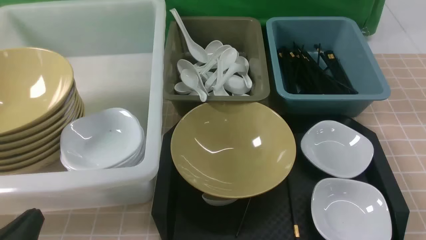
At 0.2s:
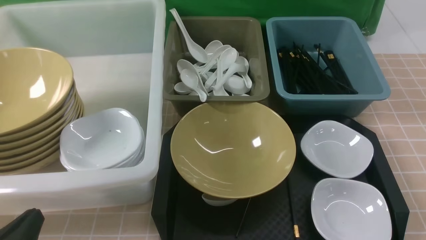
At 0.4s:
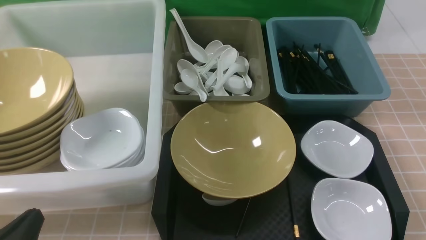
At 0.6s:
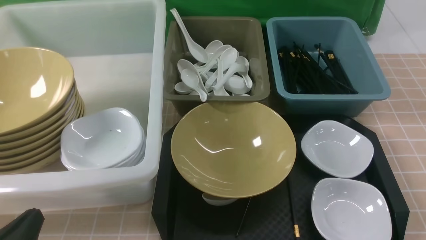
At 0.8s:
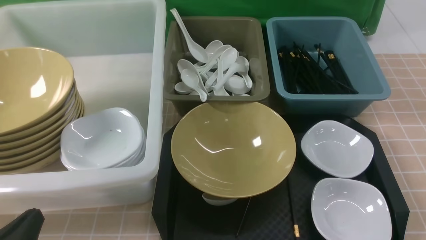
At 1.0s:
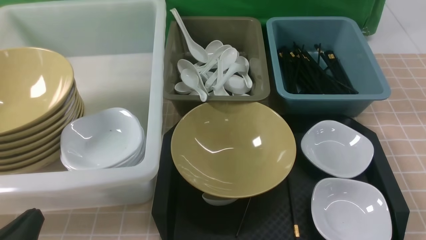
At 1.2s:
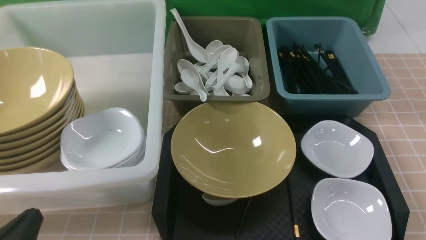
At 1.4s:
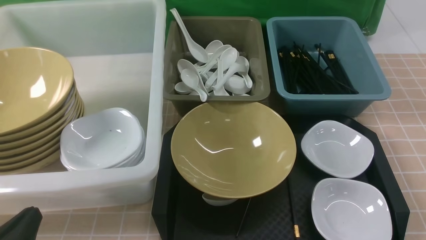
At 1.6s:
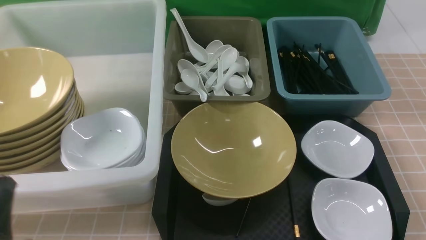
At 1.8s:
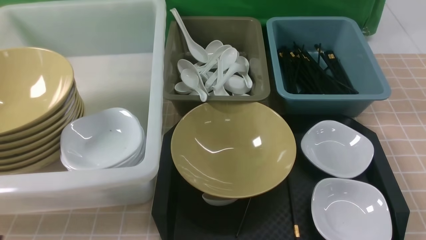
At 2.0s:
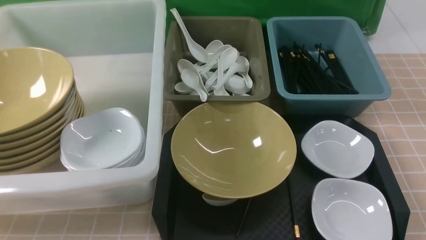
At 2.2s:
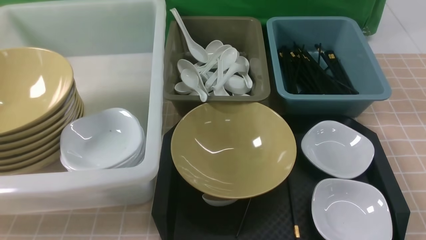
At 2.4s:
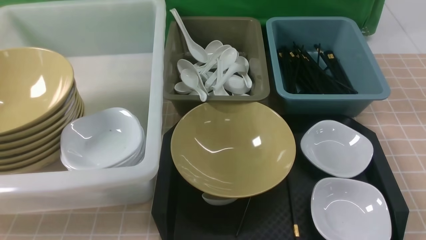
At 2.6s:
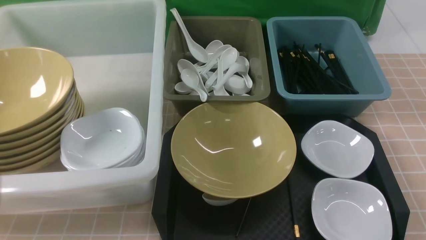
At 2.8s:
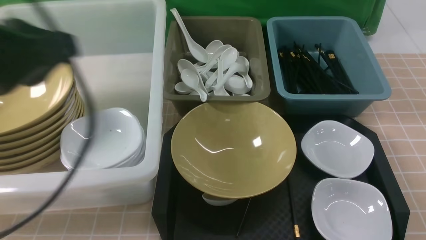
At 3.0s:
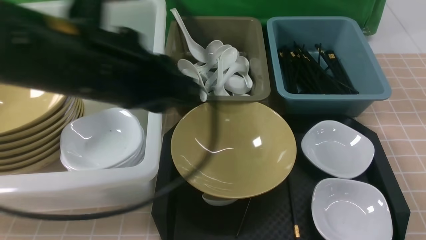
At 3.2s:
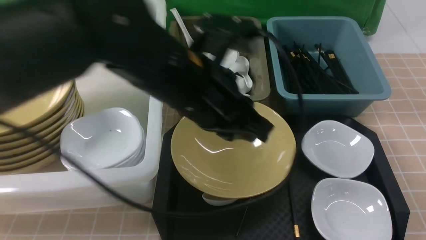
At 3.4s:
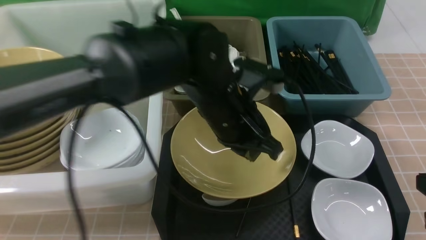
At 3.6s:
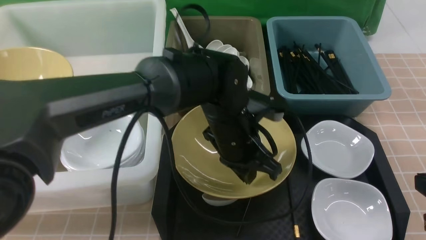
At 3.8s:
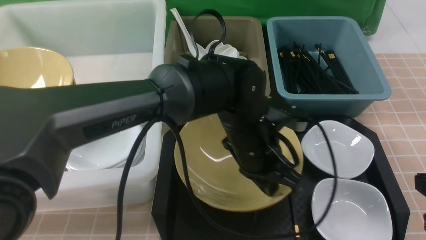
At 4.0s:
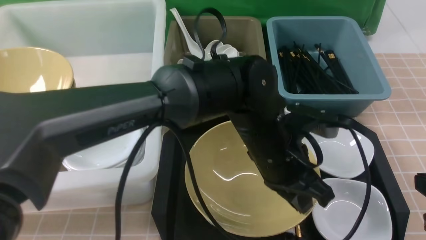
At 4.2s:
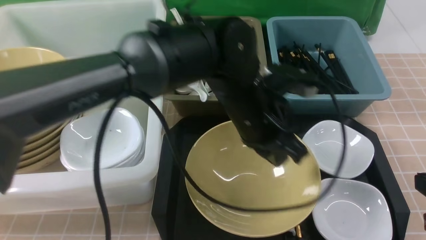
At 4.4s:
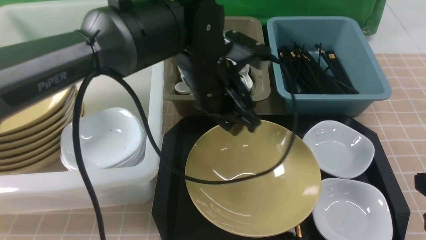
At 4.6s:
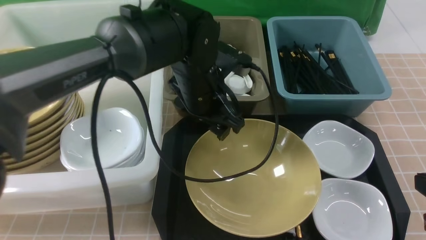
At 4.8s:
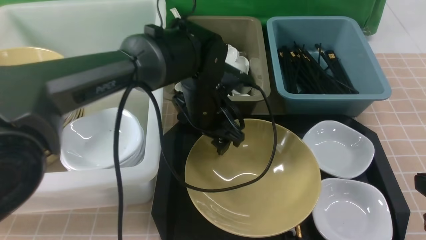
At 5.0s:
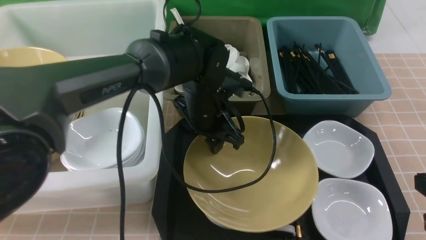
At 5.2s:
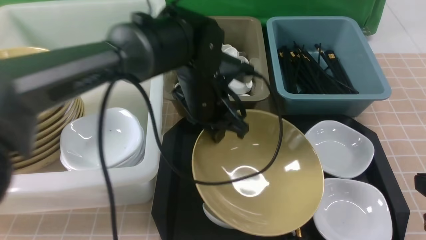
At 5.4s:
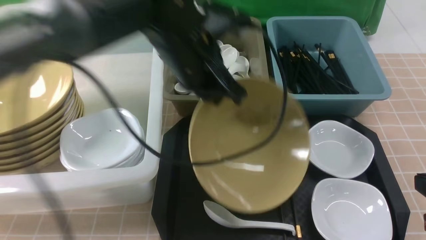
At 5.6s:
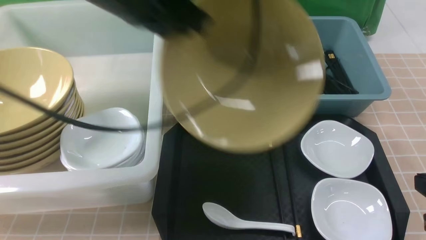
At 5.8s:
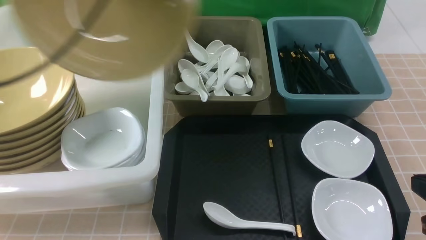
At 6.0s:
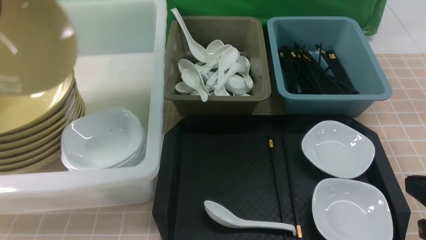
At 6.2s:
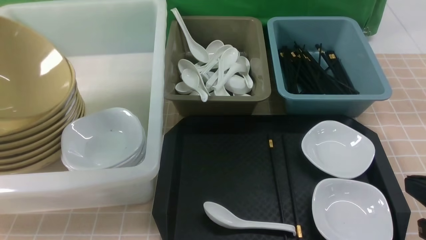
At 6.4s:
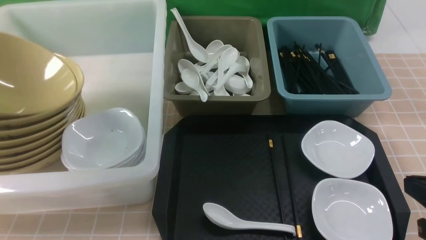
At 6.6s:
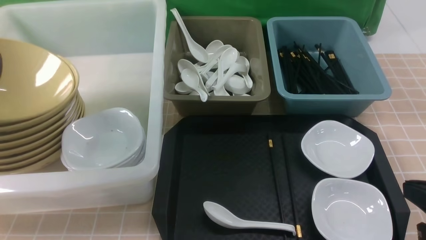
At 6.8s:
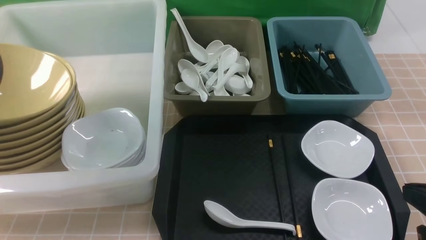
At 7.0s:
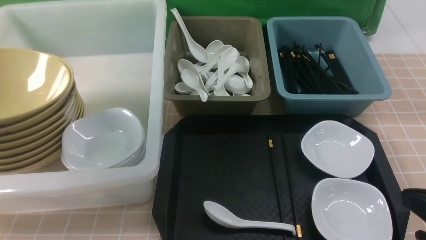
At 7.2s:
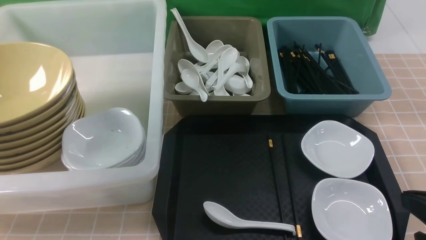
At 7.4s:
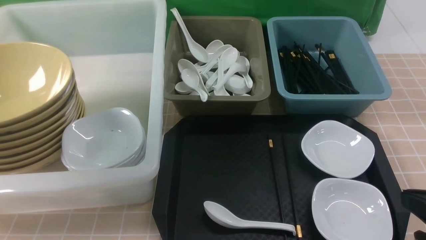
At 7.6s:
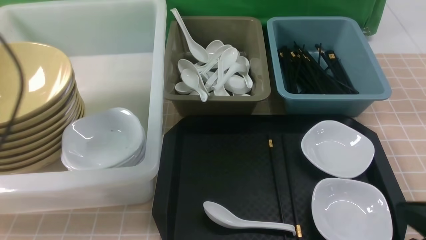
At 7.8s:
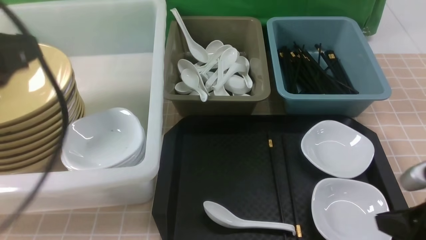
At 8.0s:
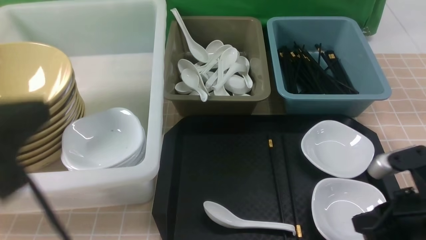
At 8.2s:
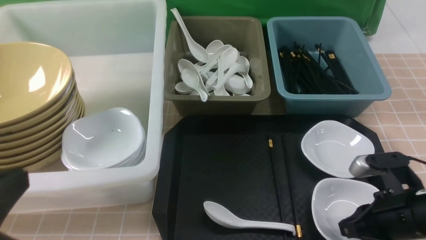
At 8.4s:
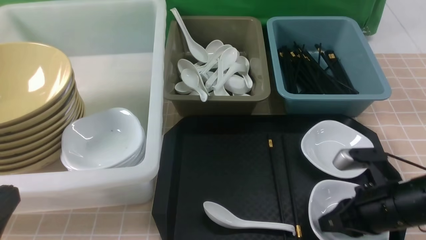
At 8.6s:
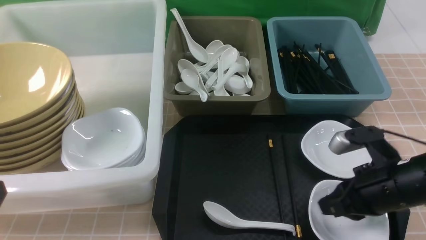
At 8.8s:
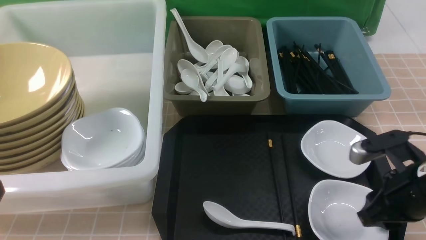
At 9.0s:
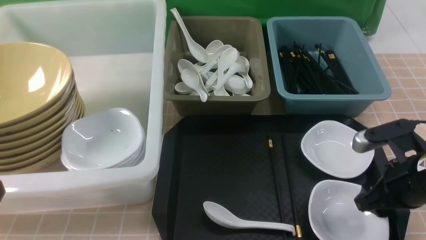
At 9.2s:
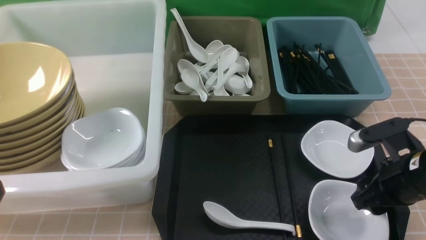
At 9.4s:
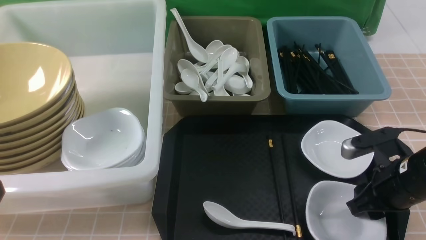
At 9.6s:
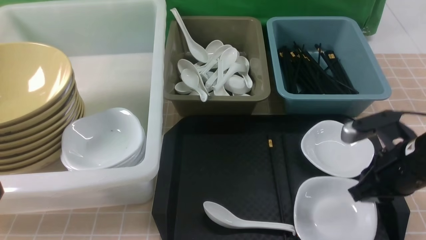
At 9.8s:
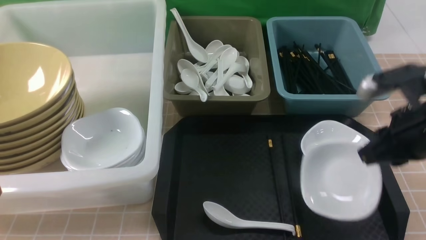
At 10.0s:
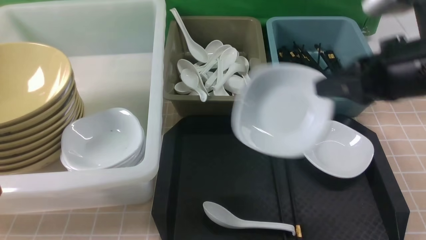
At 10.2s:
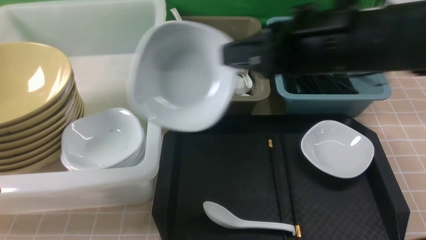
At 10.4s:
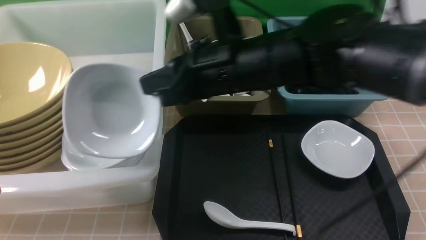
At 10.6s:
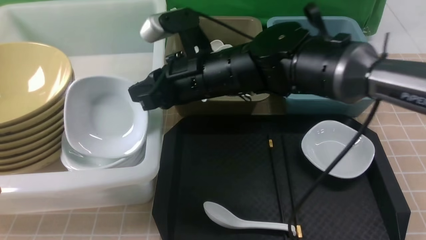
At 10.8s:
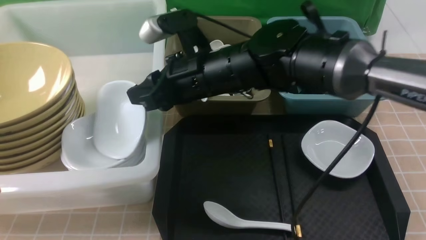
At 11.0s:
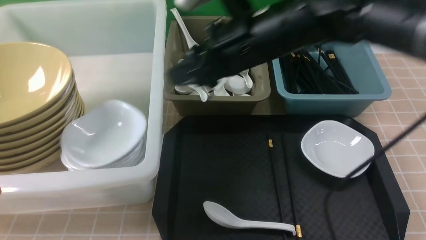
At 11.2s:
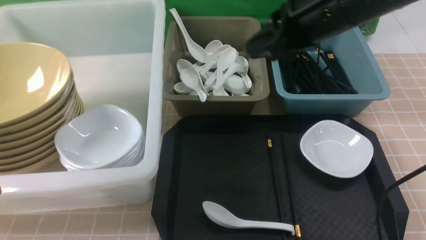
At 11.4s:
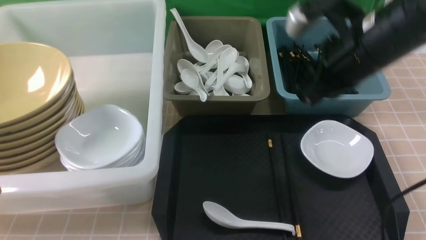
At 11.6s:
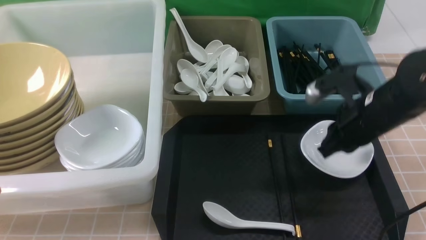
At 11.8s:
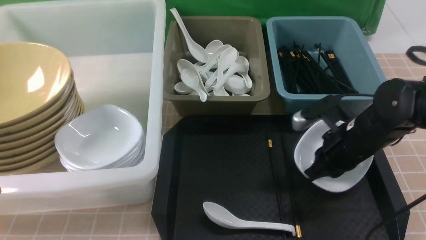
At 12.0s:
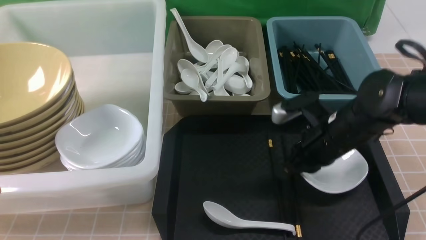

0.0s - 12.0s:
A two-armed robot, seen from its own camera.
Task of the whole recording: on brown table put chopsticks spoon bowls plates into blue grey white boxes.
Step, 0.0s - 5.2s: use the left arm to grab the yellow noodle bowl on the left.
Step, 5.4s - 7.2s: use the left arm to put the noodle bowl into the large storage box on the left.
Step, 7.4s - 9.6s: use the right arm to grab the plate.
Step, 9.8s - 10.8s: use the right arm to put the plate into the large storage box on the left.
1.6s - 3.0s: The left gripper heads forward, upward and to the right, covering some 25 cm. Meanwhile the right gripper goes about 5 cm forward, moves approximately 10 cm upward and comes back, and closes up.
3.0s - 4.4s: The left gripper is displaced downward, to the right and forward by roughly 20 cm, and opens its fingers.
4.4s - 6.0s: The left gripper shifts roughly 35 cm to the left and upward, and closes.
6.0s - 7.6s: The left gripper heads downward and backward, covering some 5 cm, and opens, then closes once more.
7.6s - 9.0s: The left gripper heads backward and downward, covering approximately 20 cm; the right gripper shifts some 10 cm forward, and opens its fingers.
9.0s - 10.4s: The right gripper shifts approximately 25 cm to the left and upward, and closes its fingers.
10.4s - 12.0s: The right gripper moves to the right and downward, about 20 cm, and opens, then closes again.

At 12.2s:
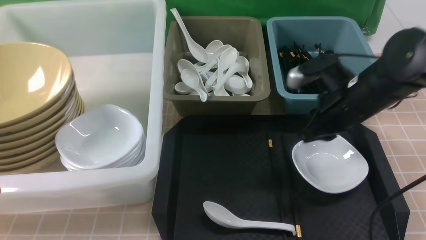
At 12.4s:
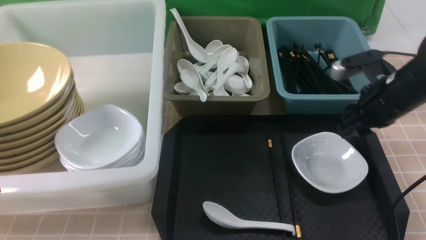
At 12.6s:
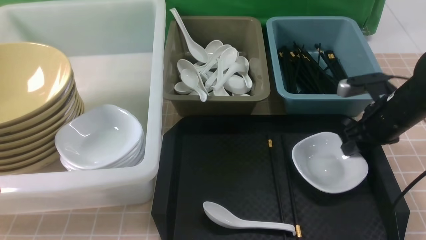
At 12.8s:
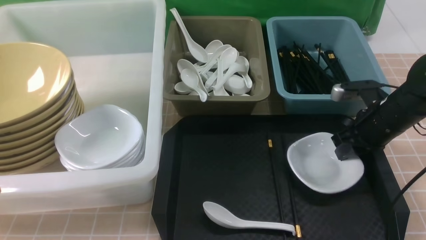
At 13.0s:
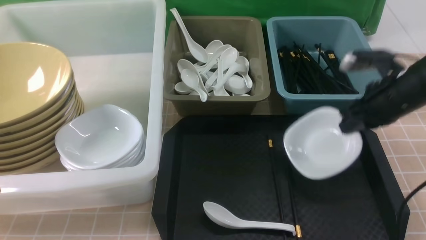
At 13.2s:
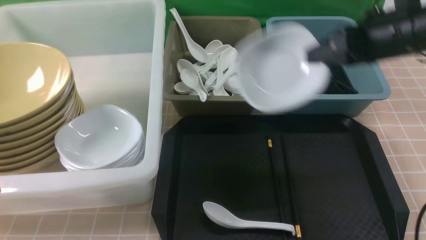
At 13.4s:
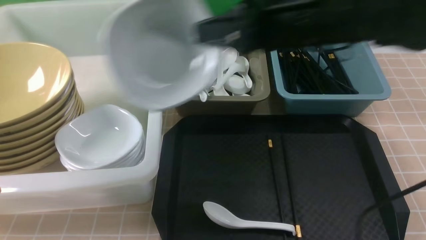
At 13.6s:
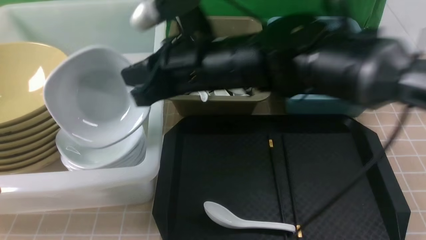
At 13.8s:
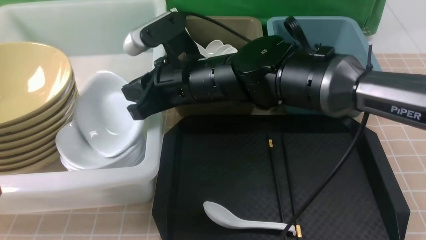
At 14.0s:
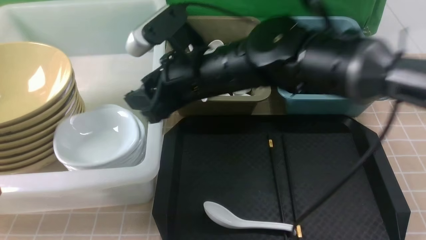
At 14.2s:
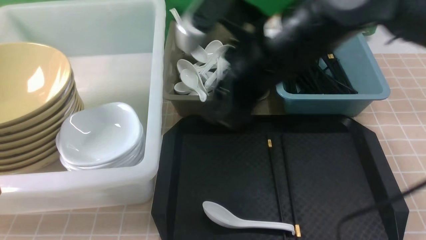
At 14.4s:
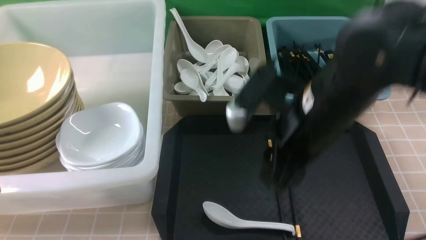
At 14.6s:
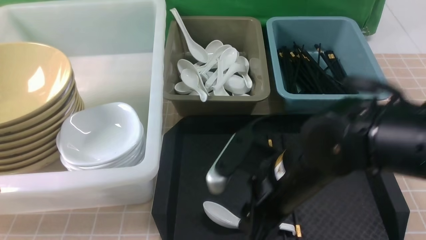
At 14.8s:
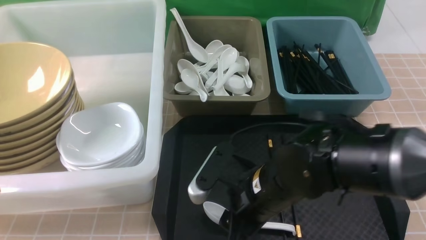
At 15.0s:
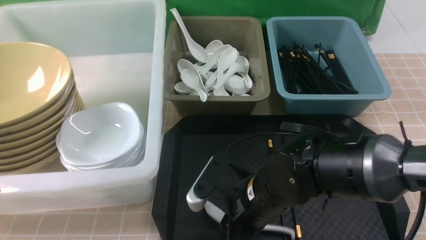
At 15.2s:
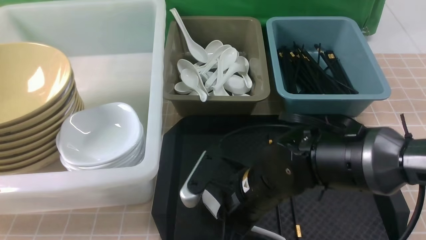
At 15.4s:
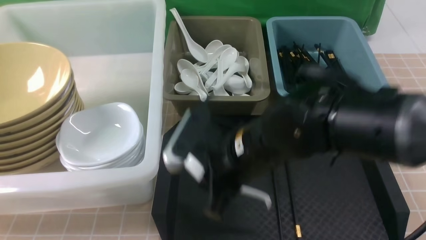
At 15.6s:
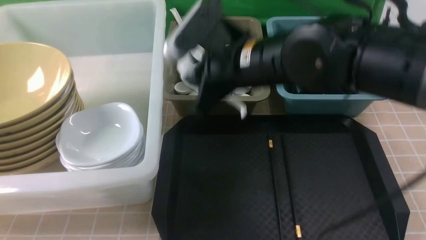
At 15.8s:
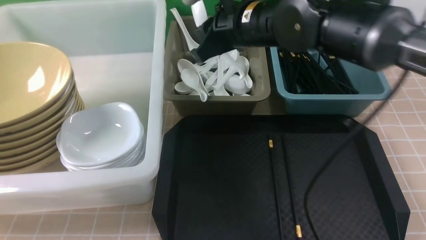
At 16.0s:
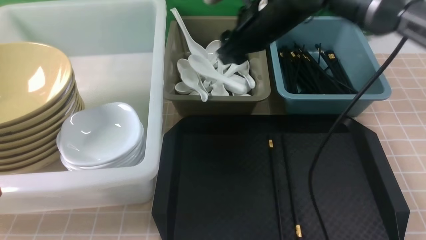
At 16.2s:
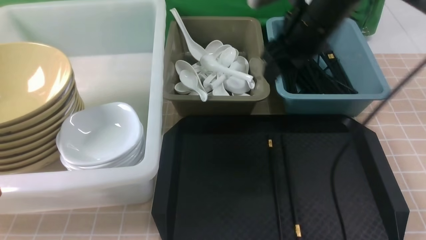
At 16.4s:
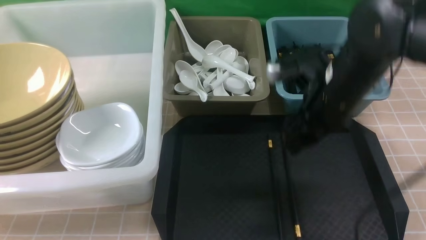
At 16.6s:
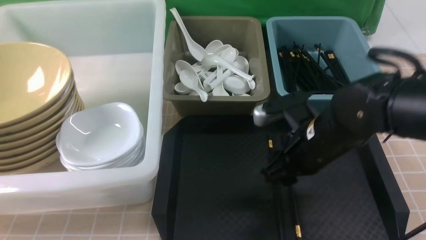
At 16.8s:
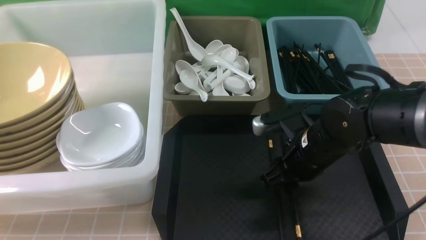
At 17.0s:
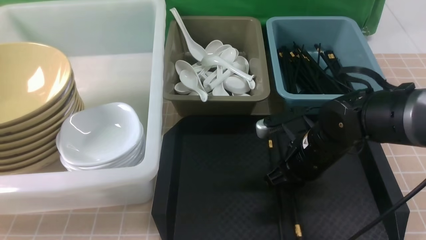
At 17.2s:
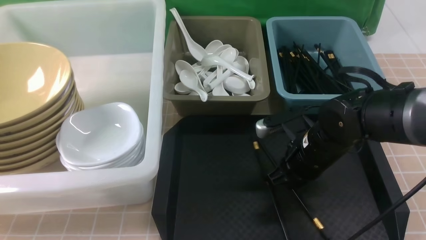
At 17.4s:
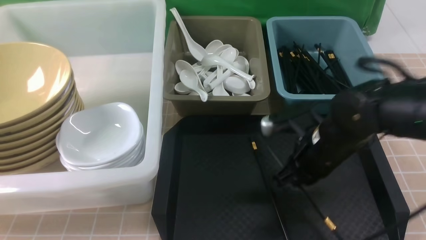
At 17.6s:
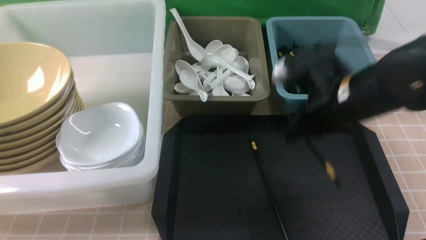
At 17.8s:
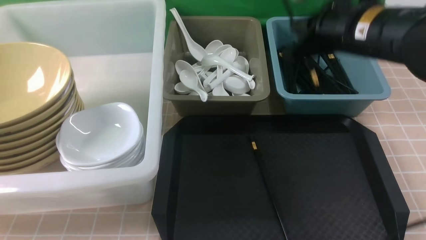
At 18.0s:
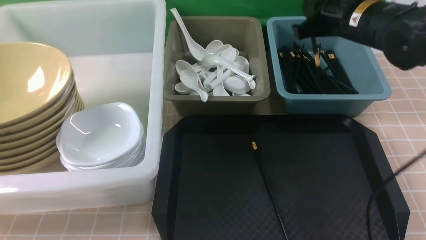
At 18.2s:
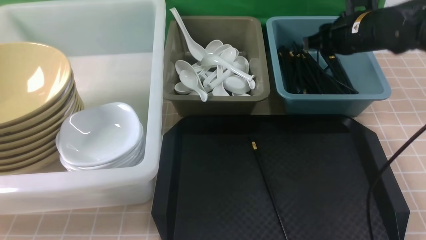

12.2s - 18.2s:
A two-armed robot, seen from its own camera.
Task of the whole recording: on brown table put chopsticks spoon bowls plates into blue grey white boxes.
Step, 13.0s - 13.8s: use the right arm to put the plate into the large storage box on the left.
Step, 14.0s - 15.2s: use the right arm to grab the soup spoon in the middle.
Step, 15.4s - 16.2s: use the right arm to put the soup spoon into the small storage box in the middle.
Step, 16.4s - 17.2s: use the right arm to grab a chopstick.
12.2s - 13.8s: The right gripper moves to the left, about 25 cm.
13.8s - 15.2s: The right gripper shifts about 15 cm downward, backward and to the right, and opens, then closes once more.
15.2s - 16.6s: The right gripper goes about 10 cm to the right, reaches approximately 15 cm forward, then returns, and opens.
16.6s - 18.2s: The right gripper travels forward, upward and to the right by approximately 15 cm, and closes and opens again.
